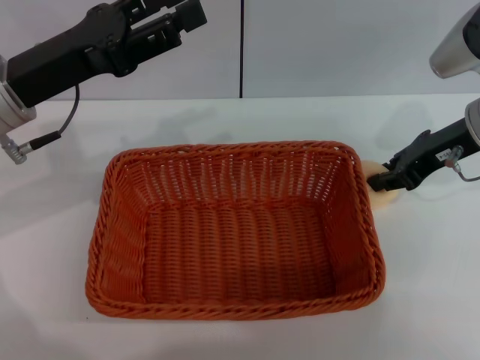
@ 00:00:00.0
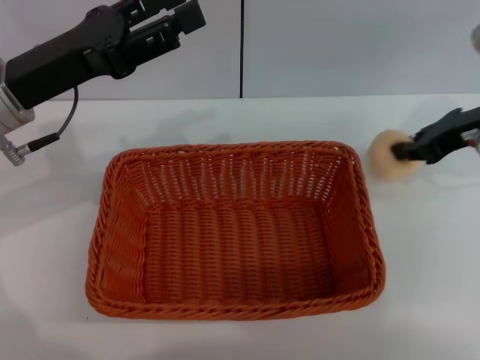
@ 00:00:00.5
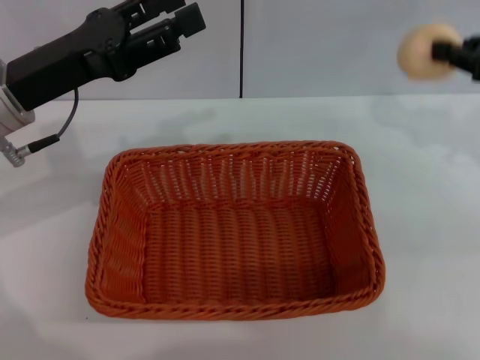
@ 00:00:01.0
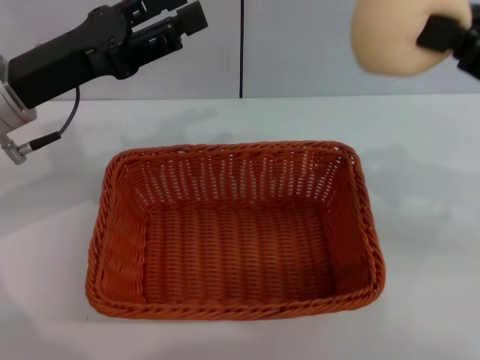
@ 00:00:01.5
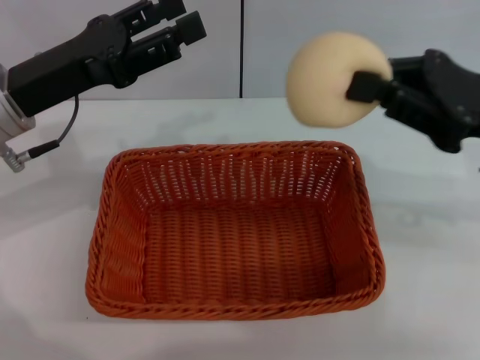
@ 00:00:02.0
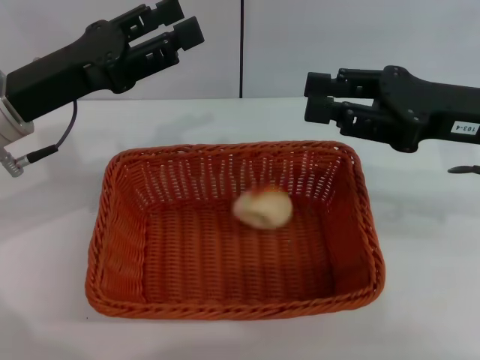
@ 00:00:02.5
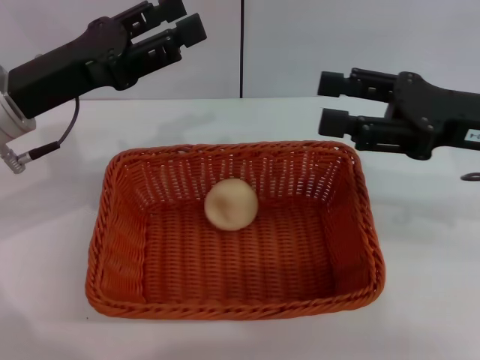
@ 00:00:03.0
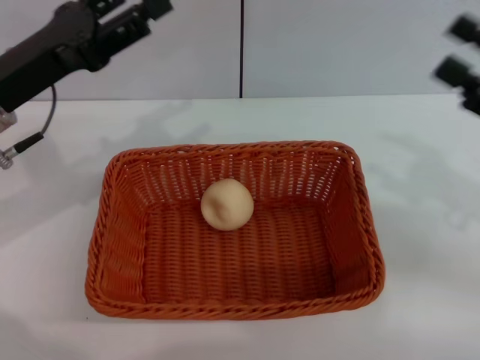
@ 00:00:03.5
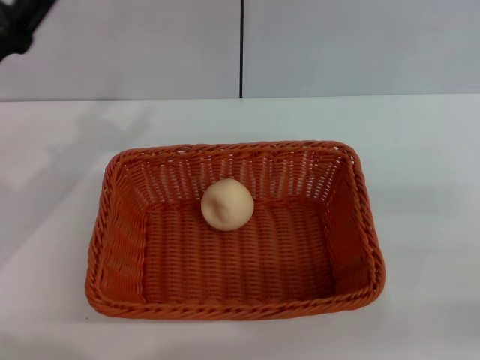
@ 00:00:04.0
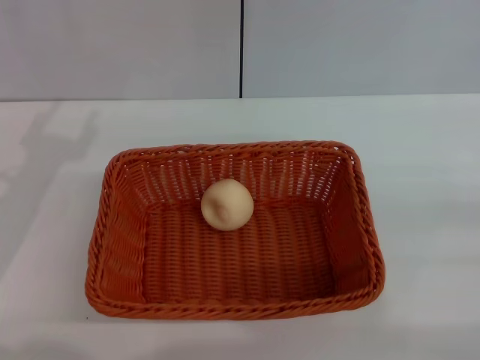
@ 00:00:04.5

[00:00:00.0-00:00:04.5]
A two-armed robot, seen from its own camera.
Step, 00:00:00.0 to 00:00:02.5: Place the egg yolk pastry in the basket with right gripper.
00:00:00.0 to 00:00:02.0: The right gripper goes some 10 cm backward, and closes its fingers.
00:00:02.0 to 00:00:04.5: The right gripper is displaced to the right, backward and downward by approximately 20 cm, and opens up, while the left gripper is displaced backward, downward and to the left by some 10 cm.
